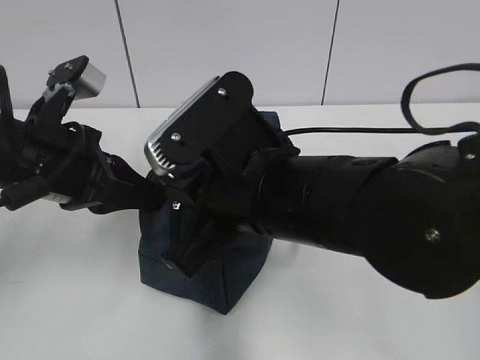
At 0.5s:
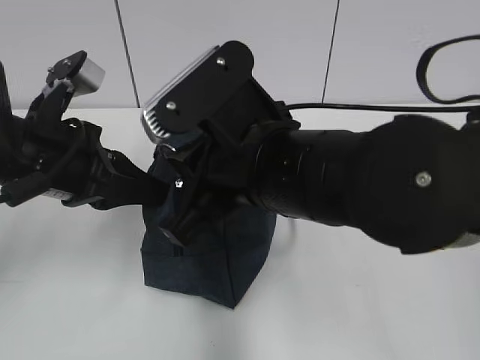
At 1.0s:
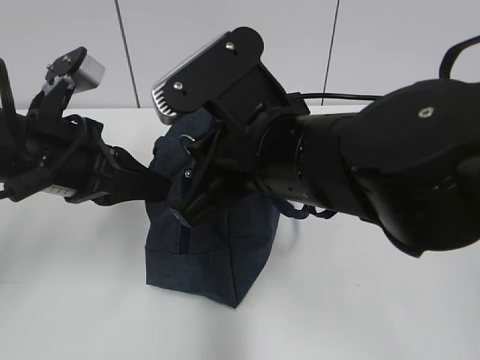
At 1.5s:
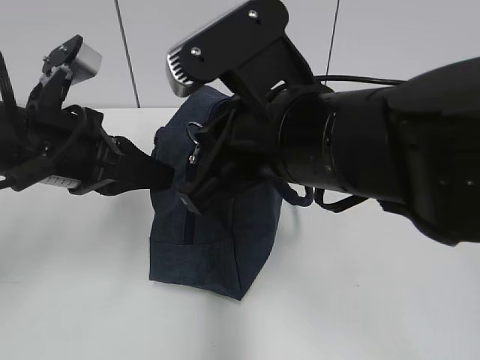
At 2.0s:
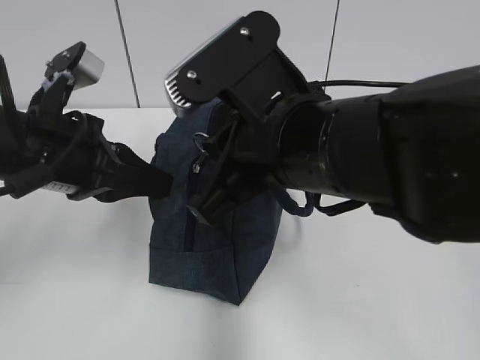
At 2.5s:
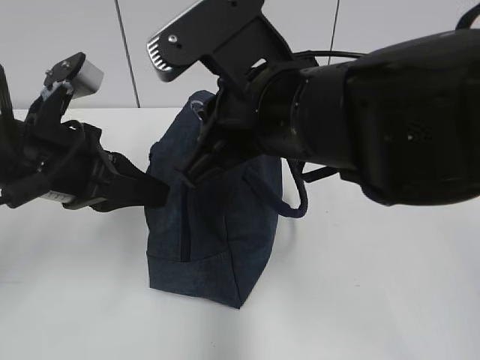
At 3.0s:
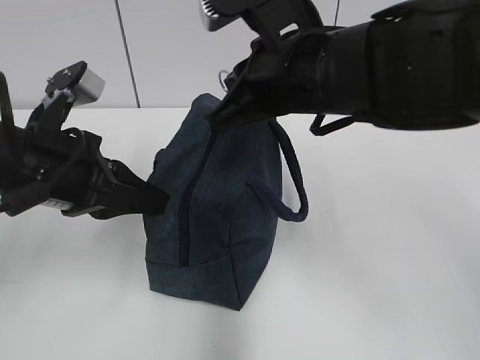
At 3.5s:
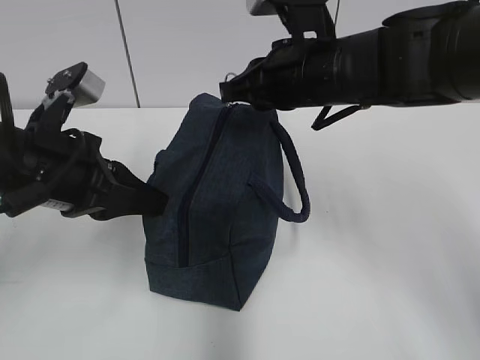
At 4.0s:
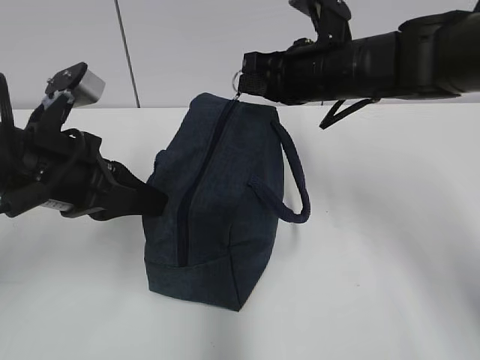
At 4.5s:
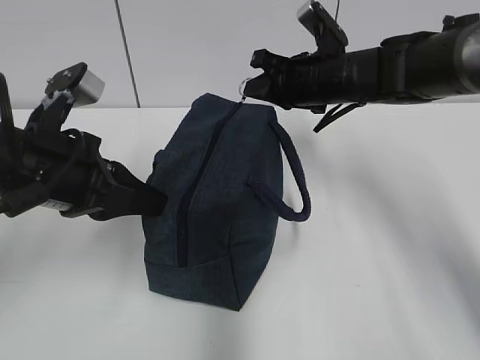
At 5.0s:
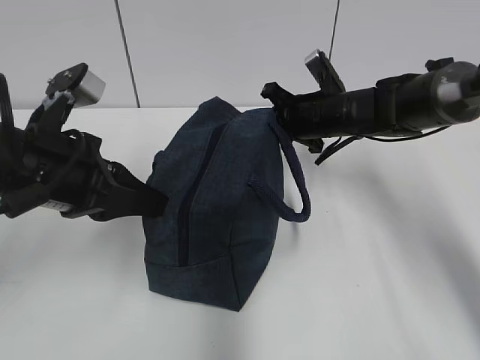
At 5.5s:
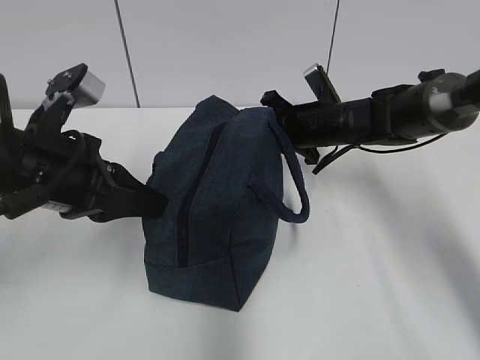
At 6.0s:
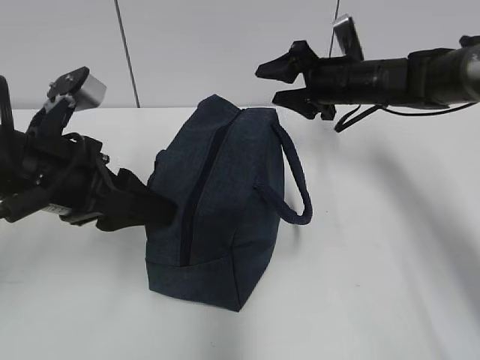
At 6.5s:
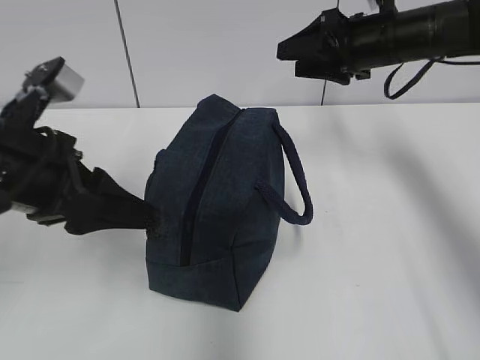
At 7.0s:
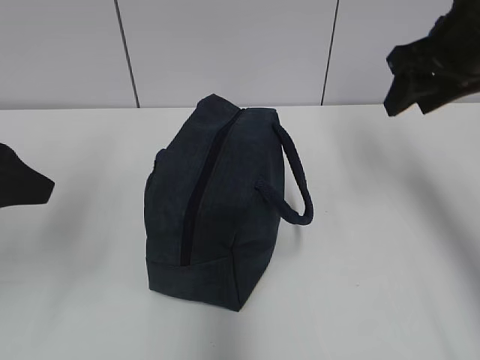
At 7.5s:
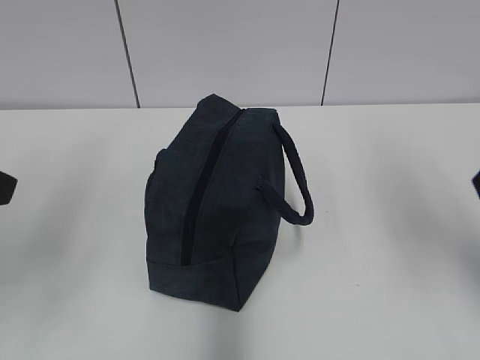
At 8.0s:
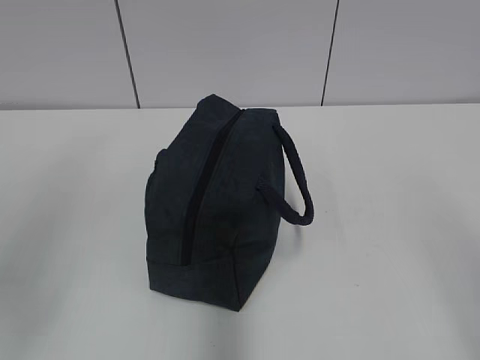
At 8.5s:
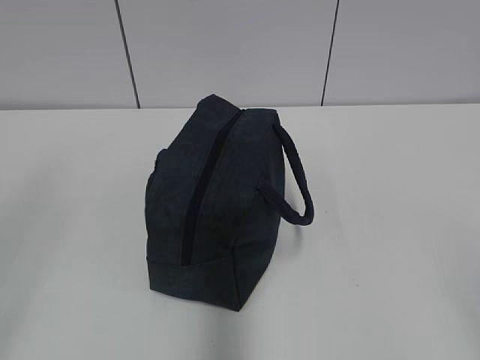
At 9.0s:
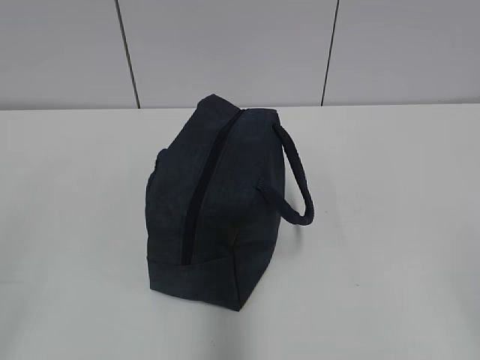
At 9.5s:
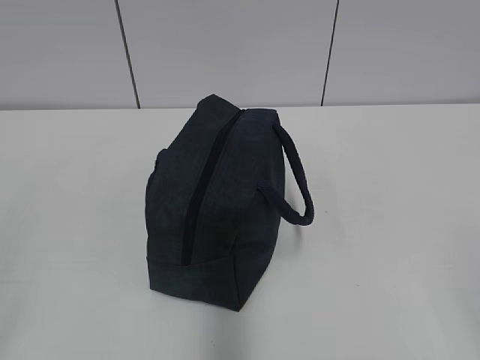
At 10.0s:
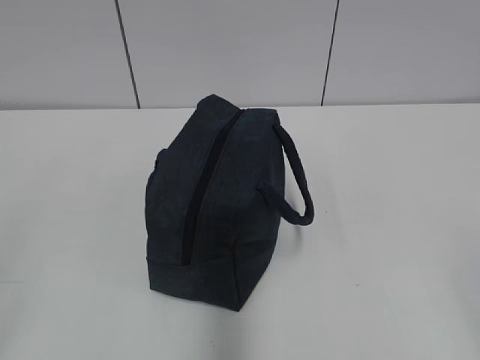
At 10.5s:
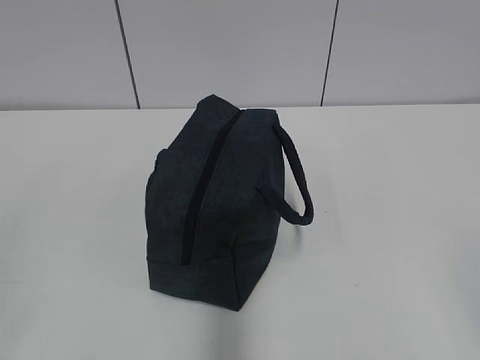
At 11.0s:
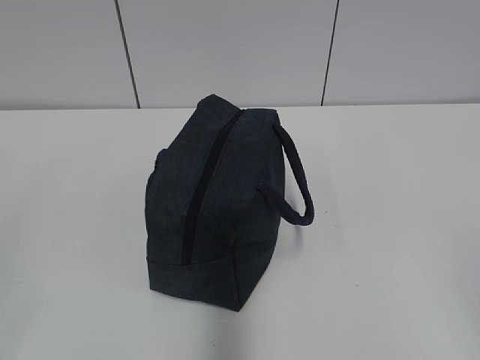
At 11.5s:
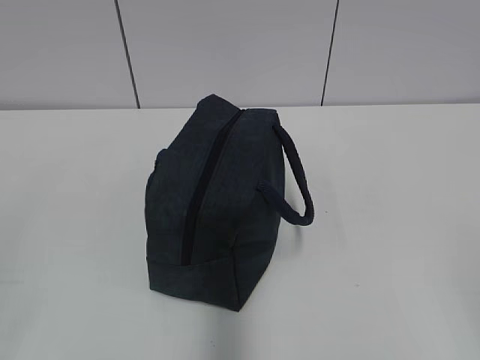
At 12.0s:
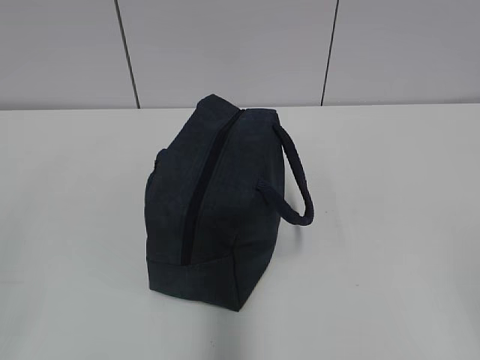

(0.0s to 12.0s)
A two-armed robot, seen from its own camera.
Step, 0.0s - 5.5s: Pull the zipper with your right hand.
2.0s - 4.0s: The right gripper shifts about 20 cm forward and to the right.
4.0s - 6.0s: The left gripper opens its fingers; the right gripper moves forward, to the right and downward, some 10 cm, and opens up.
6.0s - 8.0s: The right gripper shifts roughly 40 cm backward, while the left gripper travels backward, upward and to the left by some 20 cm.
8.0s - 10.0s: The left gripper is displaced backward and downward by roughly 15 cm.
